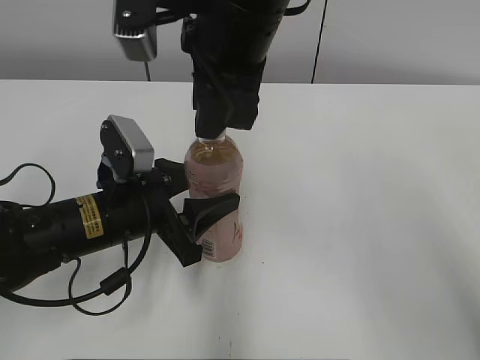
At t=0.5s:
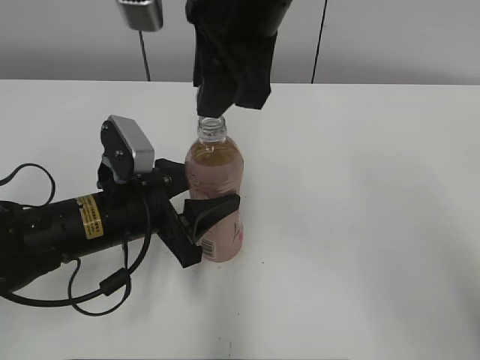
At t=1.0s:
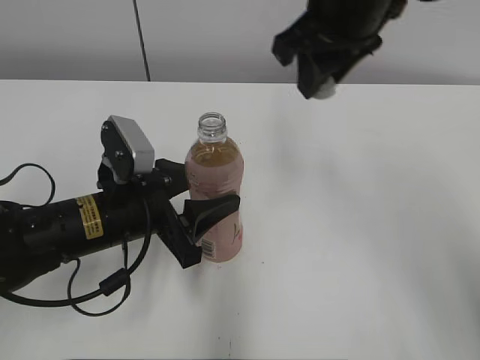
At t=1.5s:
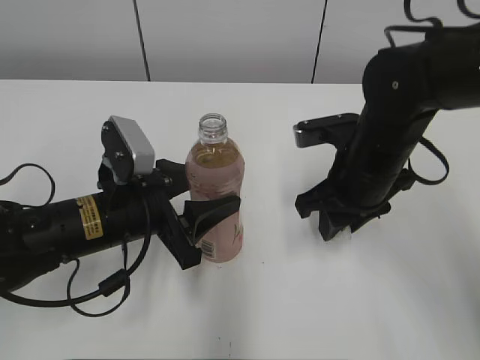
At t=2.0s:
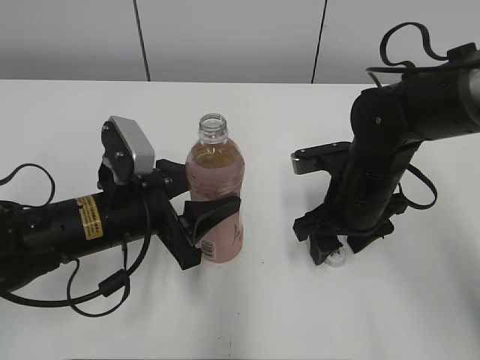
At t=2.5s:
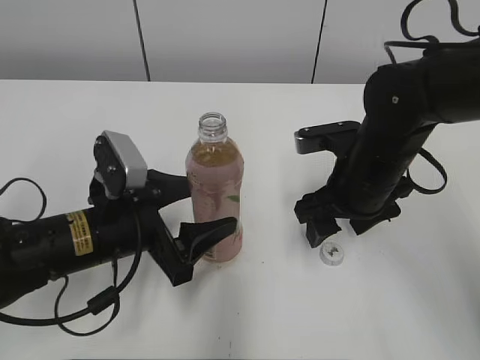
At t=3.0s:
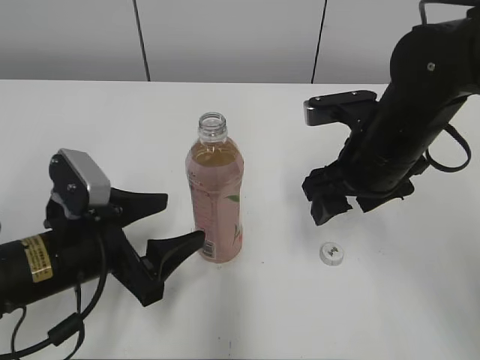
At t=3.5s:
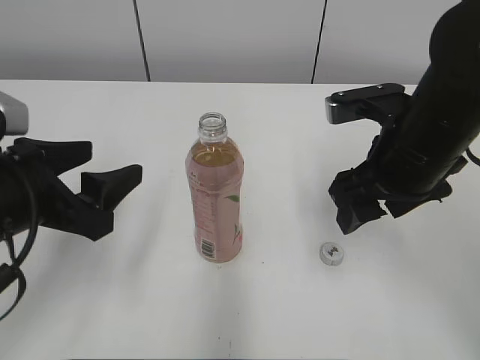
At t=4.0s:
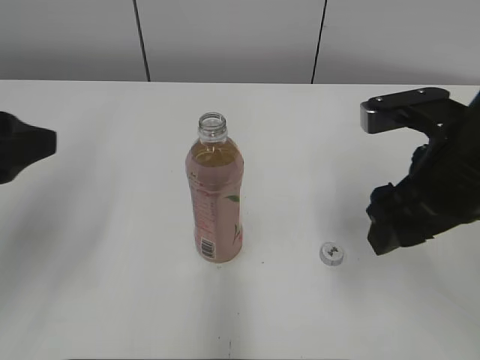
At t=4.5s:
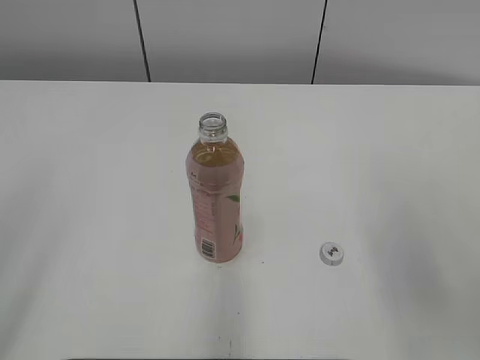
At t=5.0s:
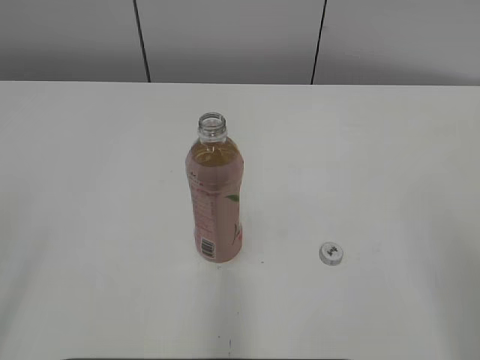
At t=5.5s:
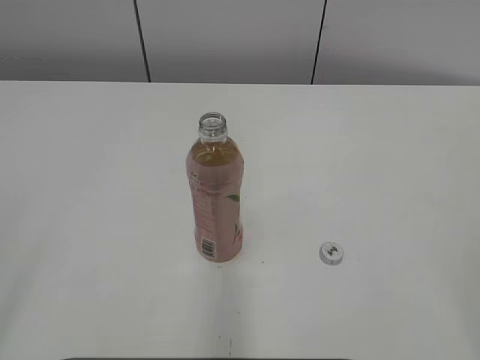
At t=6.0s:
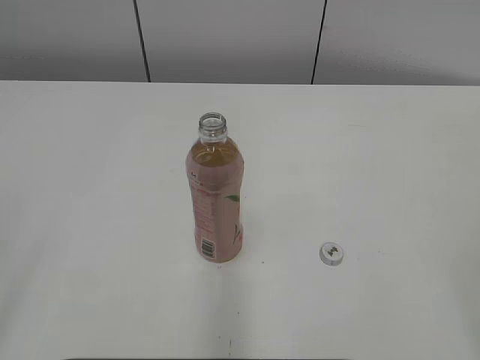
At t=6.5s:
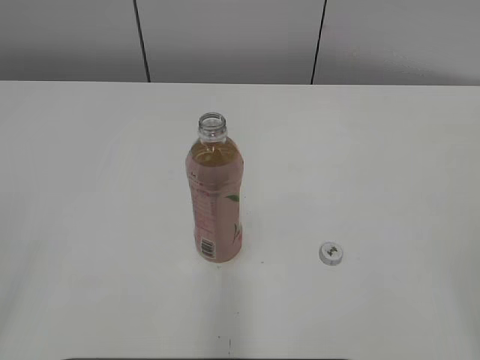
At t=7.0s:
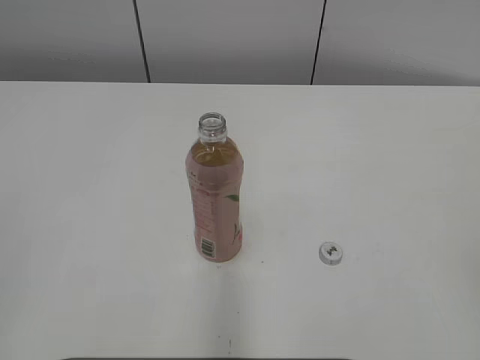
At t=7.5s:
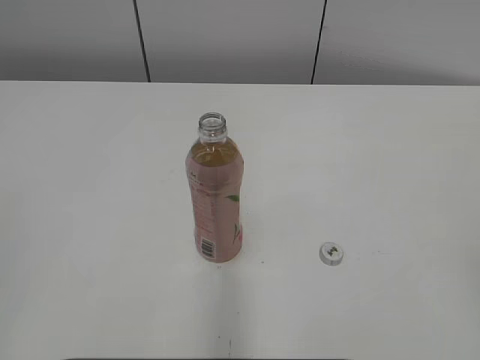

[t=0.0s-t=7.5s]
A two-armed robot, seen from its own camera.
Step, t=0.5s to t=1.5s: Place the bottle cap on the table with the right gripper.
t=0.0s to t=2.0s: The right gripper moves downward and to the right, approximately 25 cm, and opens its fingers.
t=2.0s to t=4.0s: The left gripper moves upward, to the left and backward, about 20 cm. The right gripper heads upward and backward, covering about 15 cm.
t=4.0s to t=5.5s: The right gripper shifts approximately 30 cm backward and to the right. The left gripper heads backward, covering about 20 cm.

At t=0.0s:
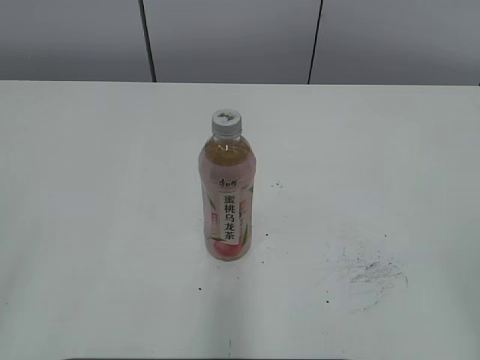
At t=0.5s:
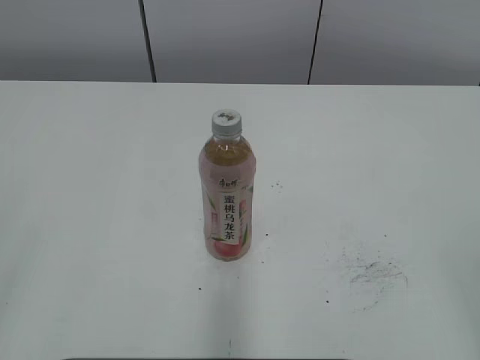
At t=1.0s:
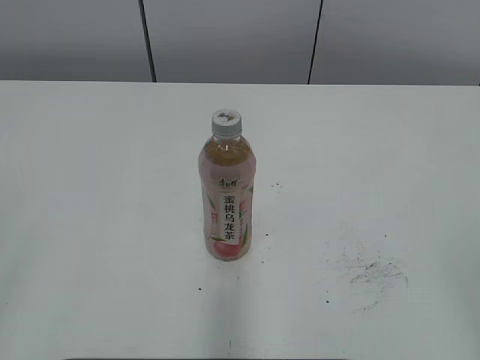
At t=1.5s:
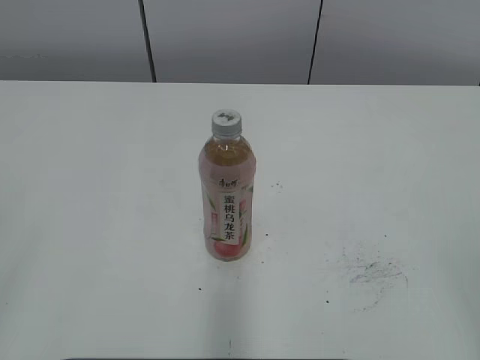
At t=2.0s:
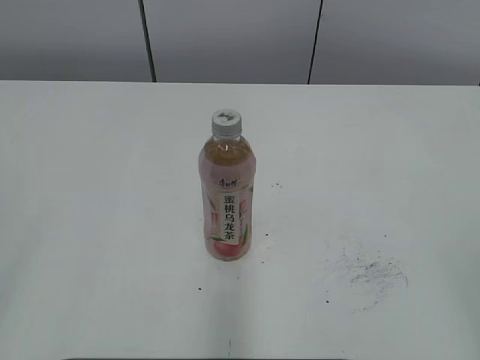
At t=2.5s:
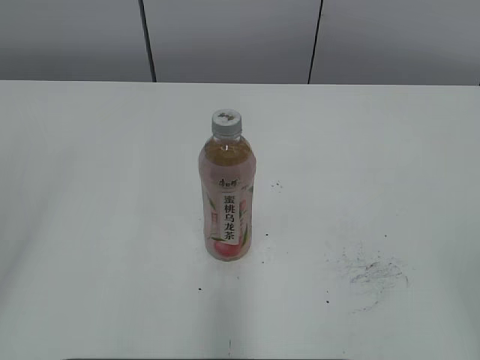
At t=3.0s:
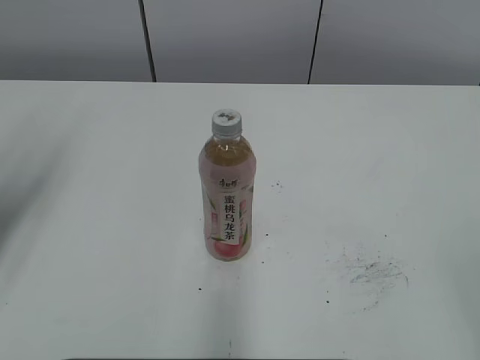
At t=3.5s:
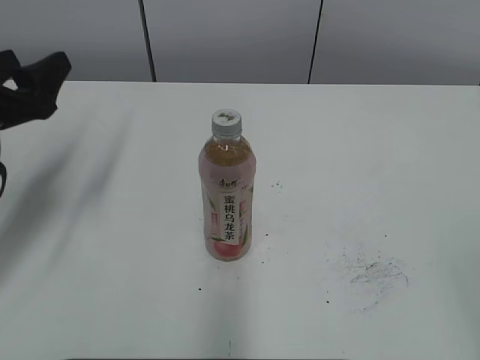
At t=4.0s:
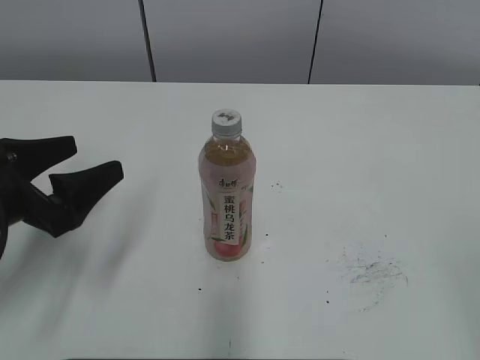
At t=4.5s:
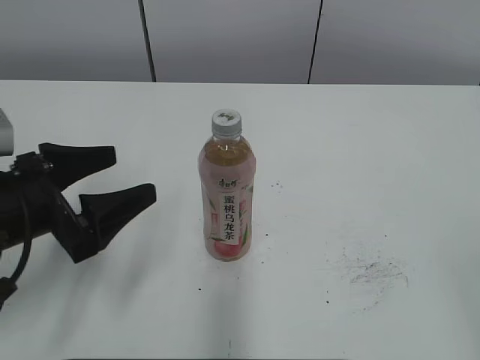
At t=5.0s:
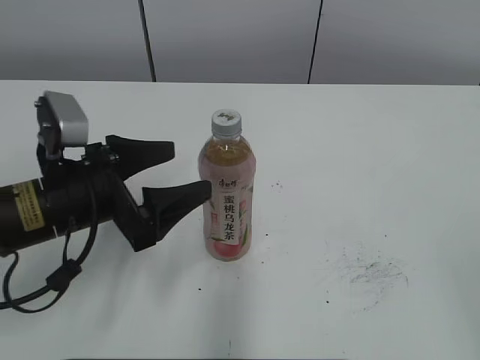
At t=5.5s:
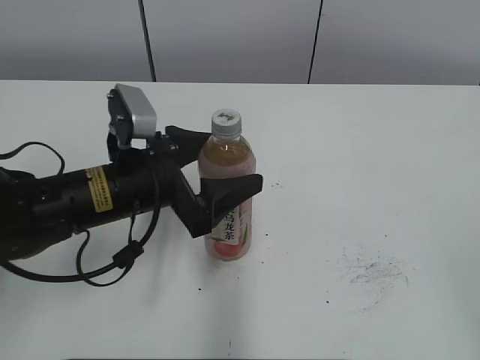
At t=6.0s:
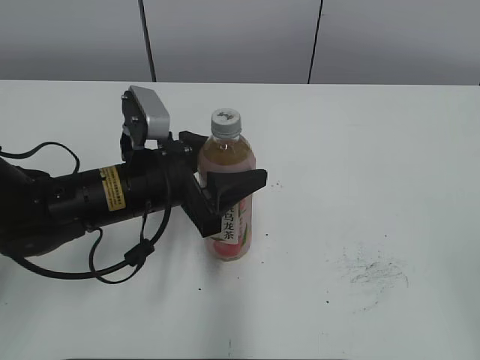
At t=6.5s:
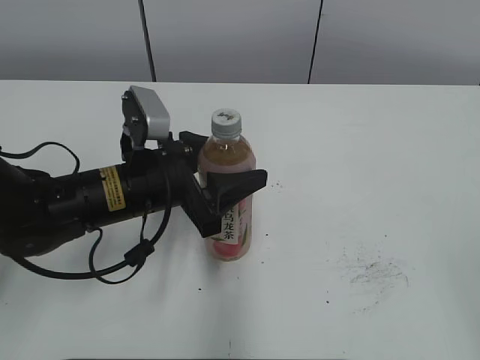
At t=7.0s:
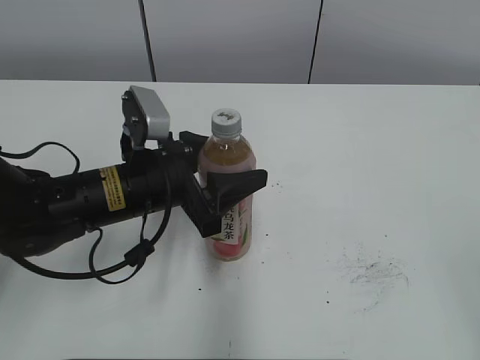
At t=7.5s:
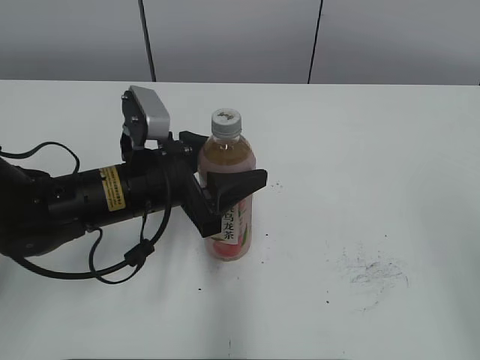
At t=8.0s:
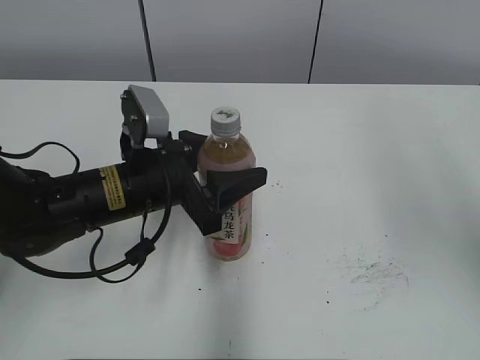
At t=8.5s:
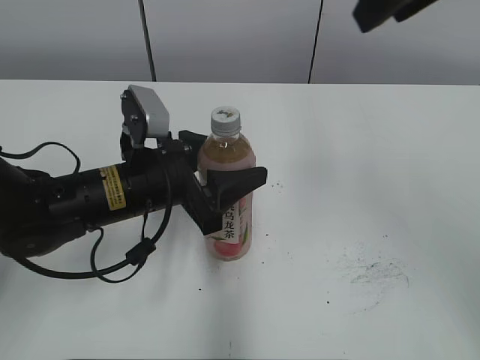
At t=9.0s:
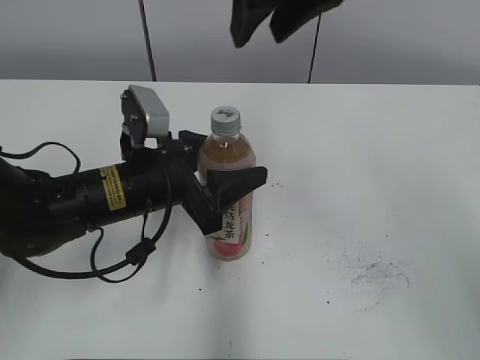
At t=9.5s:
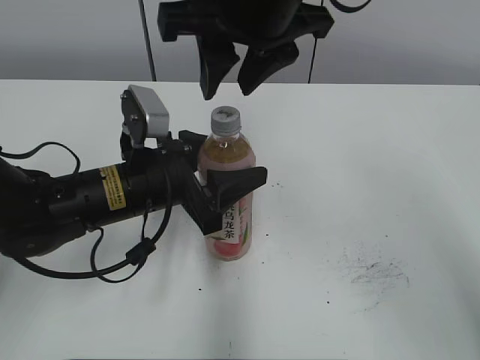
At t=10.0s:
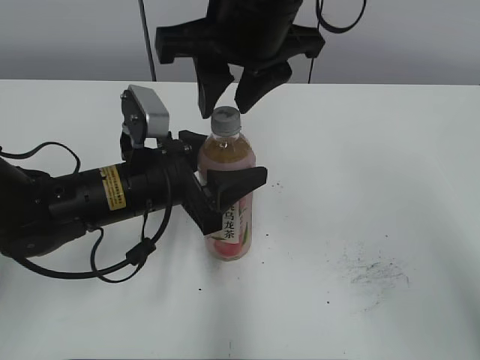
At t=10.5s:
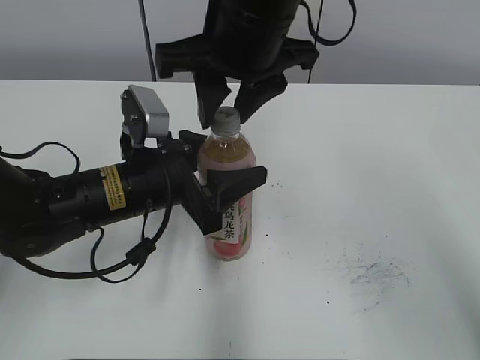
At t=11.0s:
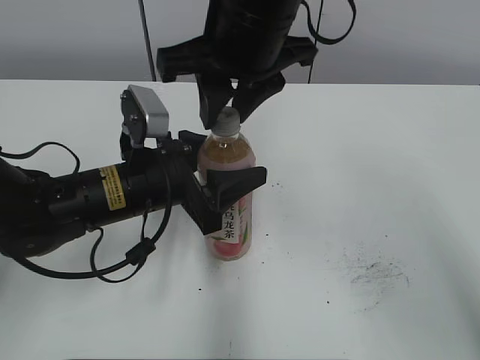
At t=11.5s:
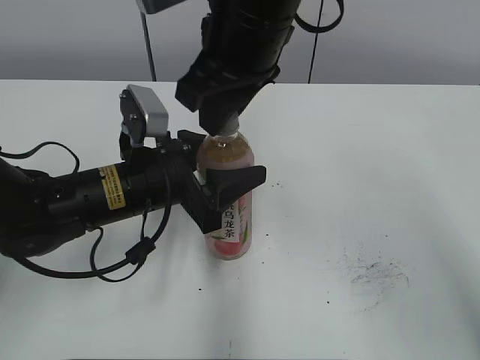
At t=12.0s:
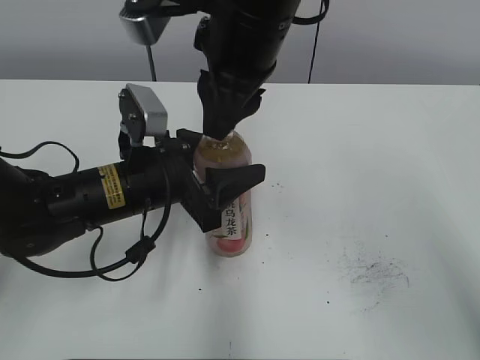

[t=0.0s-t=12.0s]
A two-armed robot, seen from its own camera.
Step, t=0.0s to t=7.0s: Grab the Peach Oolong Tea with the left hand.
t=2.0s to t=4.0s: The left gripper shifts roughly 25 cm forward and downward.
t=4.0s to t=6.0s: The left gripper is displaced to the right and forward by some 15 cm, and closes up.
t=6.0s to t=8.0s: The right gripper shifts some 20 cm forward and upward, and closes up.
t=8.0s to t=10.0s: The right gripper goes approximately 25 cm to the left and forward.

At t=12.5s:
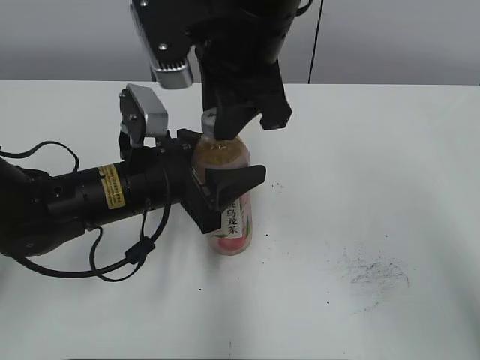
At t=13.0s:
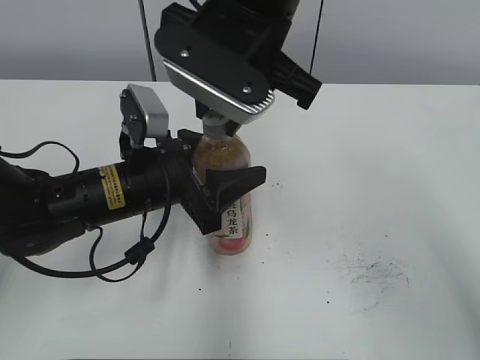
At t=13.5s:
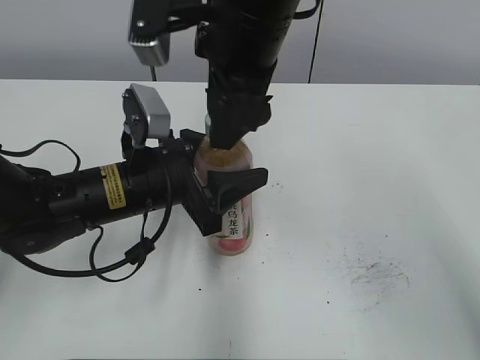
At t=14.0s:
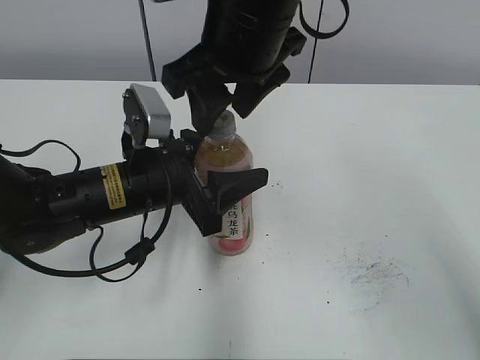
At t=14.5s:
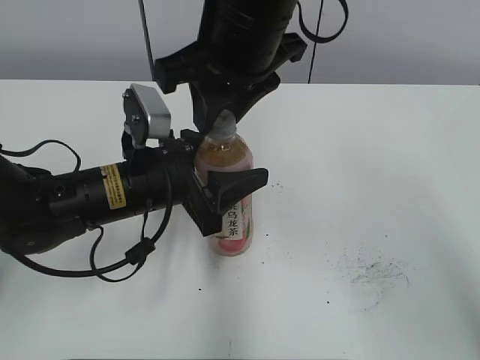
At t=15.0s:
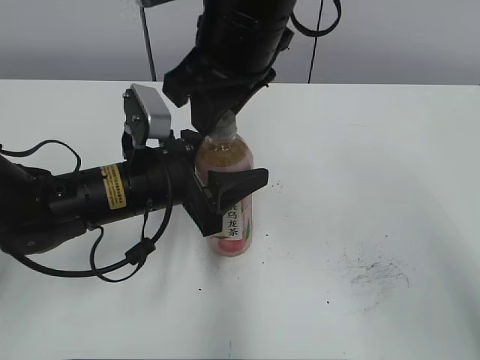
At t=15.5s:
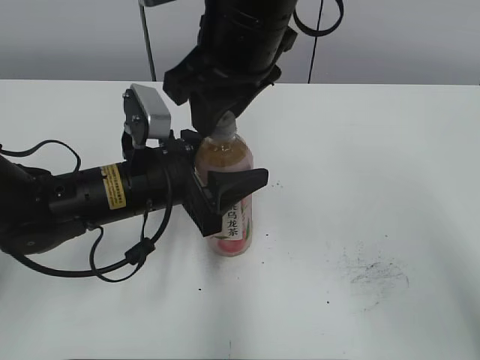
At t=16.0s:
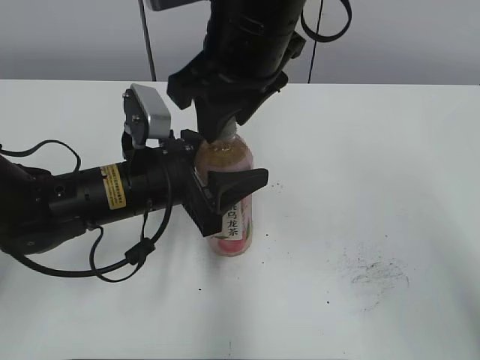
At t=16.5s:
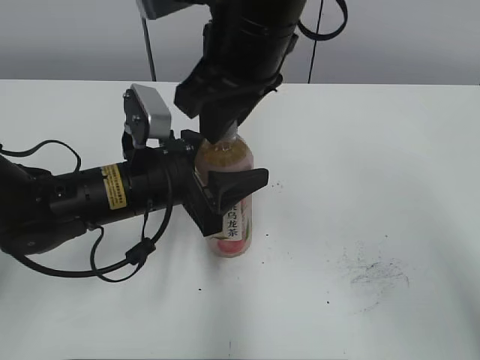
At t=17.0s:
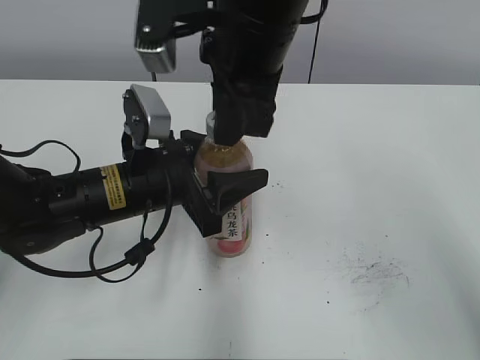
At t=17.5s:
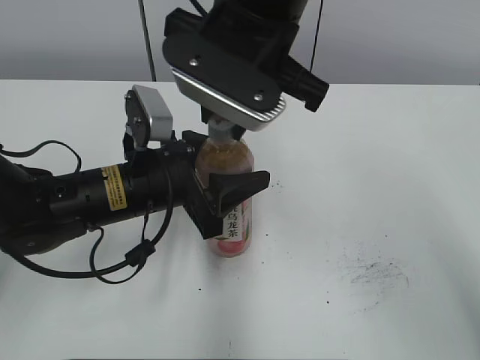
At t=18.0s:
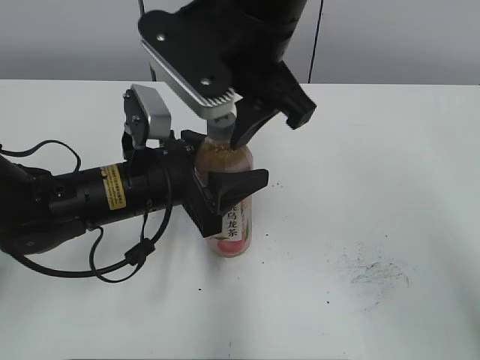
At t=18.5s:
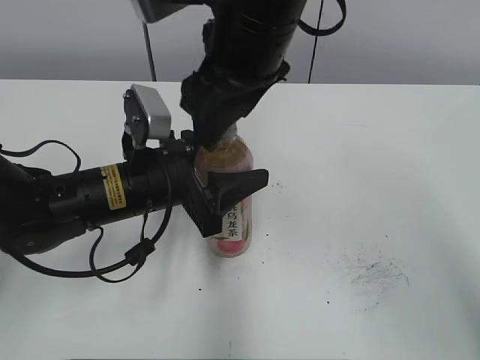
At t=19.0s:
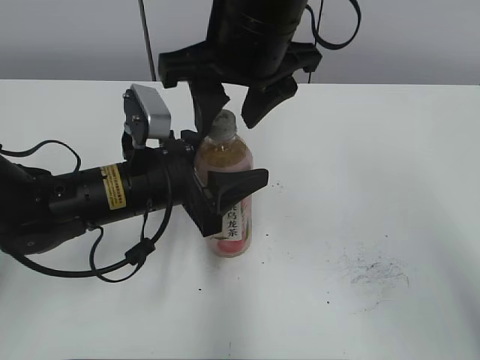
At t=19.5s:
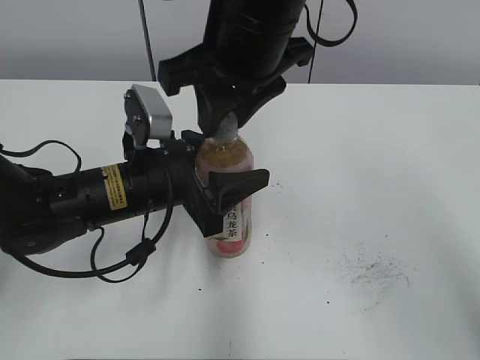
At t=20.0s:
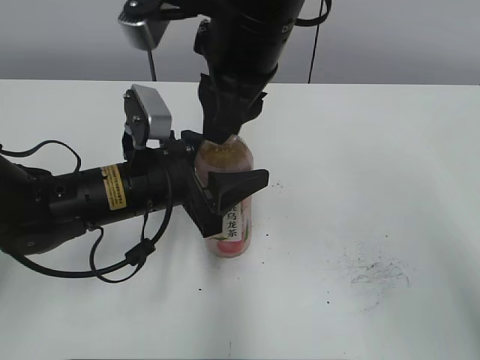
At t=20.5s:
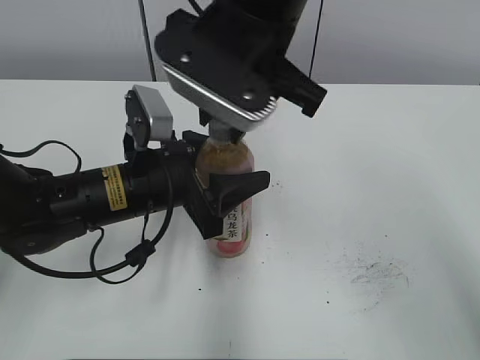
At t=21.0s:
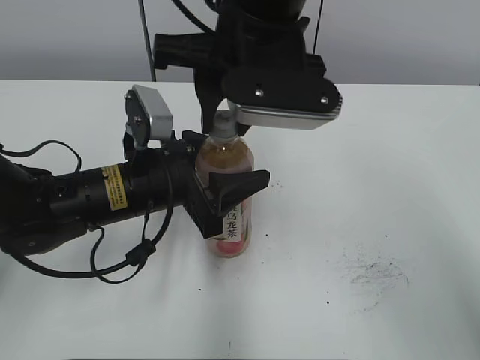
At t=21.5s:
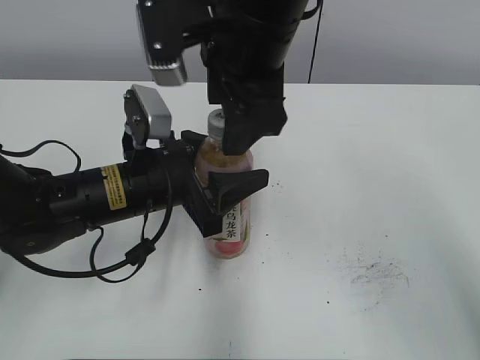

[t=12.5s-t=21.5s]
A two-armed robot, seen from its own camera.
t=12.5s to t=14.5s: The right gripper opens and closes again.
t=17.0s to t=19.5s: The right gripper opens and closes again.
t=19.5s to t=21.5s: The right gripper opens up.
